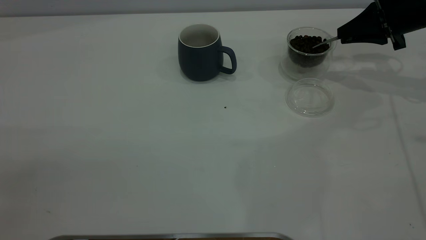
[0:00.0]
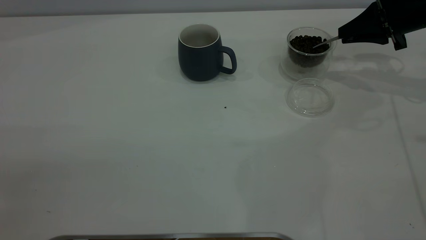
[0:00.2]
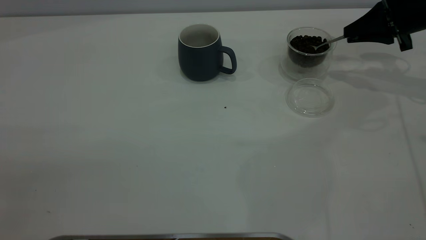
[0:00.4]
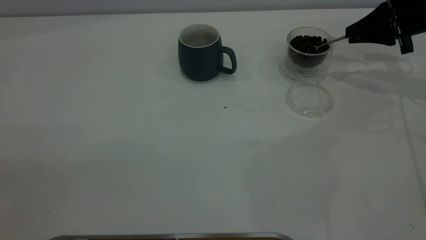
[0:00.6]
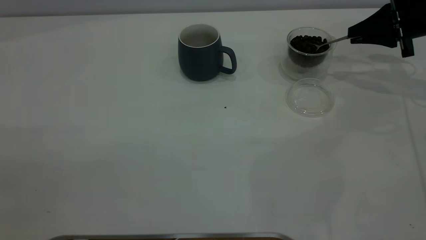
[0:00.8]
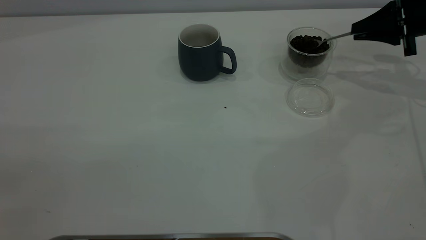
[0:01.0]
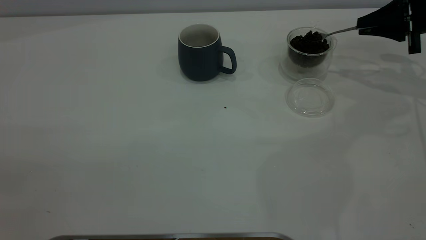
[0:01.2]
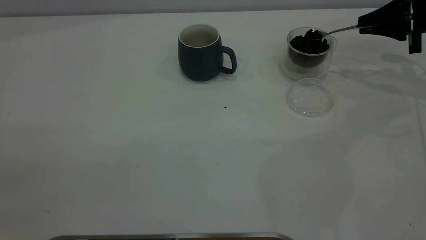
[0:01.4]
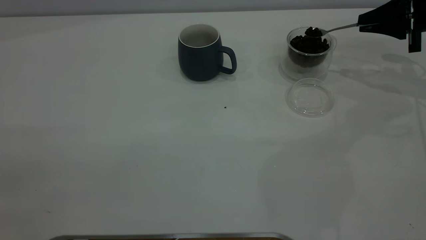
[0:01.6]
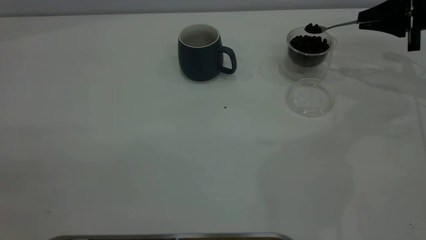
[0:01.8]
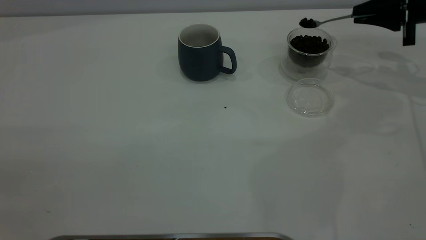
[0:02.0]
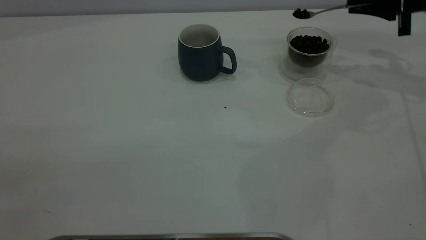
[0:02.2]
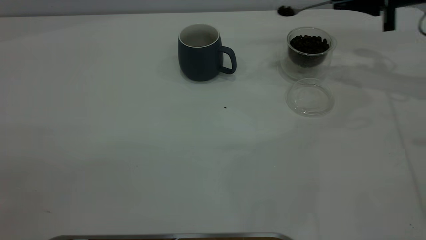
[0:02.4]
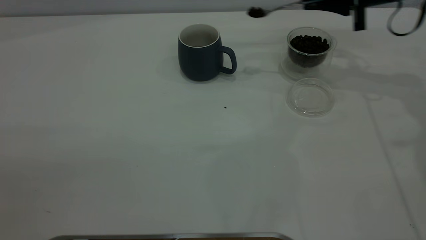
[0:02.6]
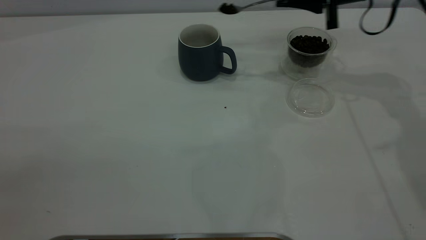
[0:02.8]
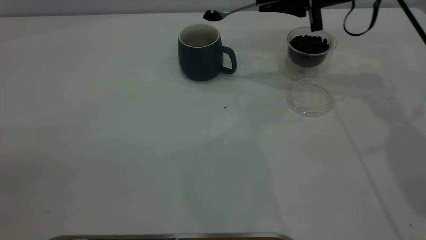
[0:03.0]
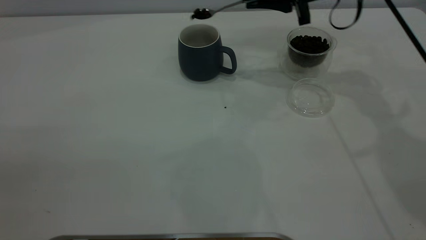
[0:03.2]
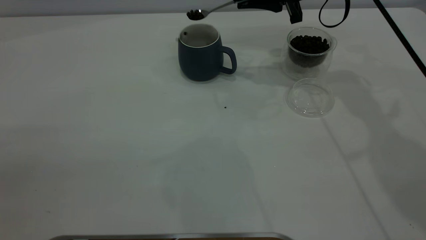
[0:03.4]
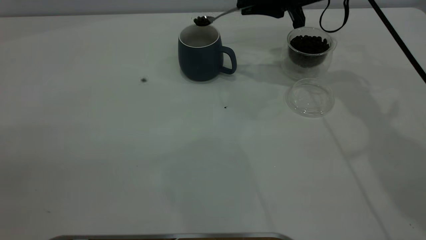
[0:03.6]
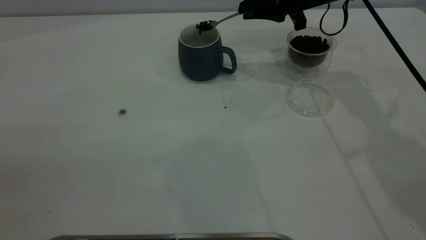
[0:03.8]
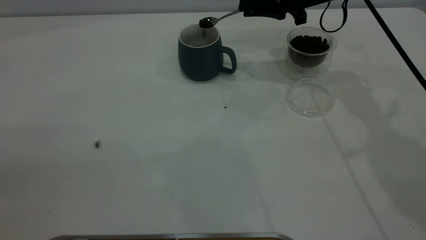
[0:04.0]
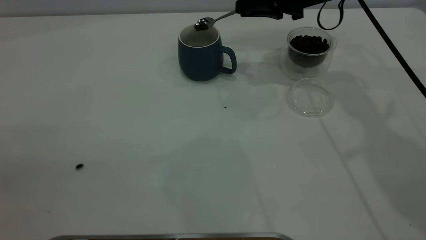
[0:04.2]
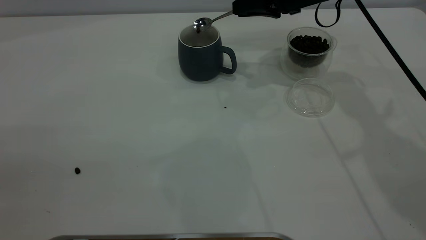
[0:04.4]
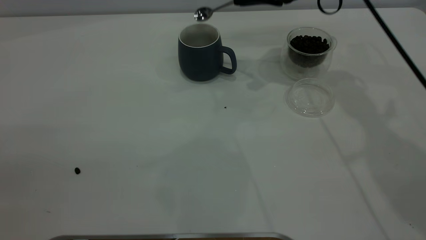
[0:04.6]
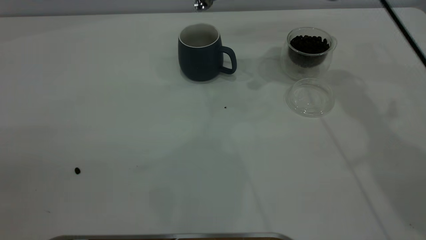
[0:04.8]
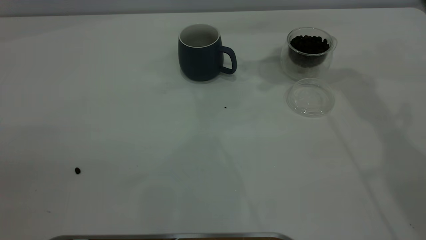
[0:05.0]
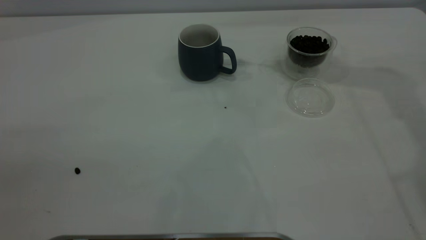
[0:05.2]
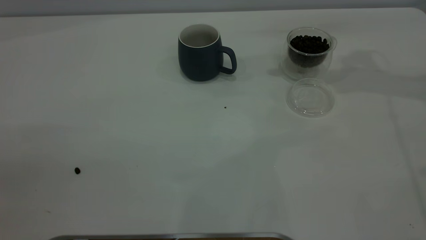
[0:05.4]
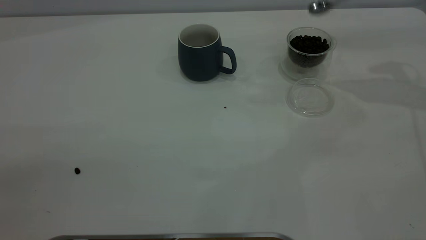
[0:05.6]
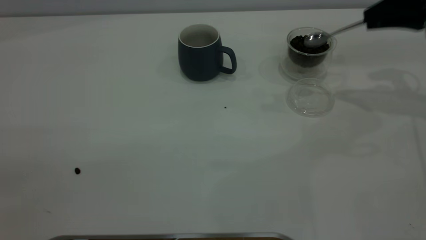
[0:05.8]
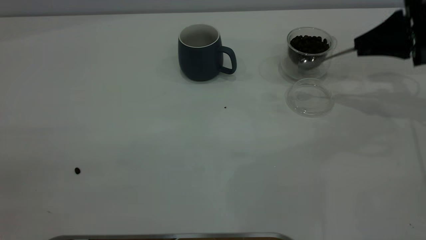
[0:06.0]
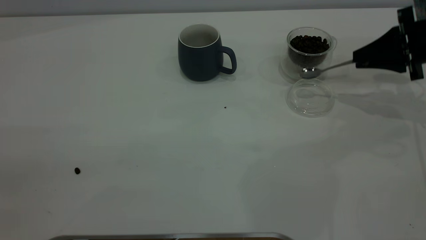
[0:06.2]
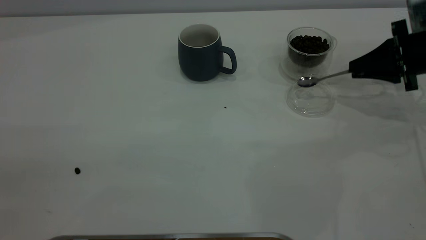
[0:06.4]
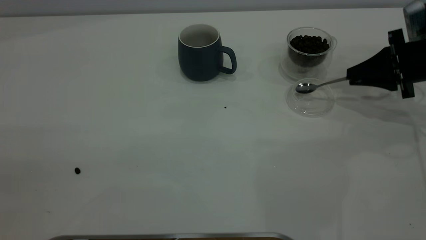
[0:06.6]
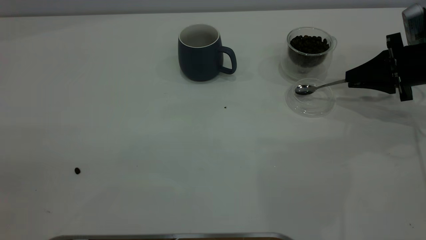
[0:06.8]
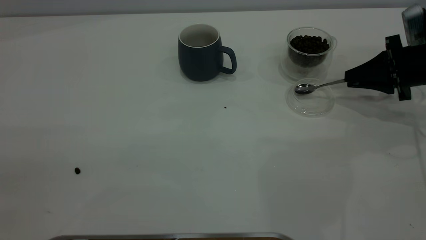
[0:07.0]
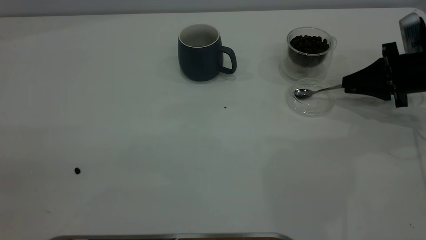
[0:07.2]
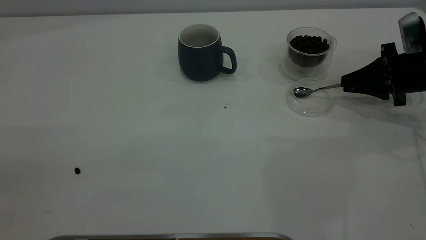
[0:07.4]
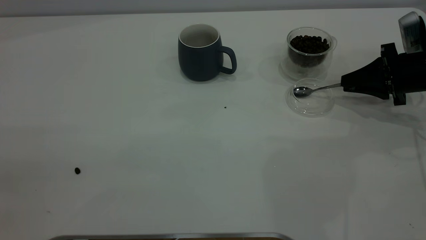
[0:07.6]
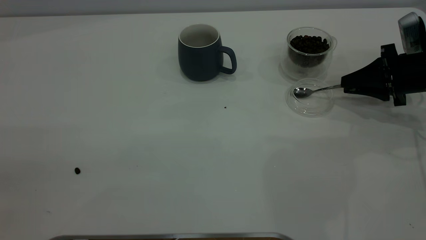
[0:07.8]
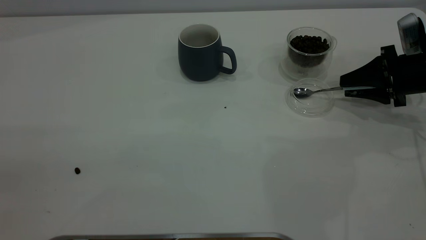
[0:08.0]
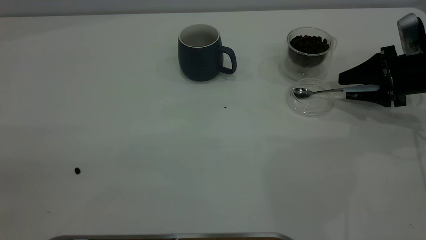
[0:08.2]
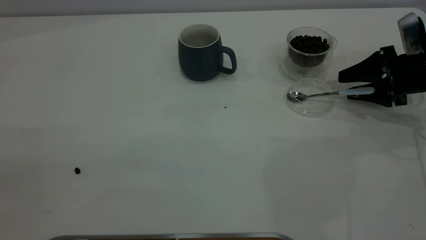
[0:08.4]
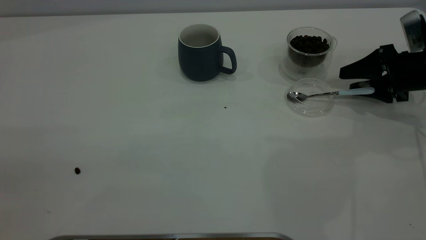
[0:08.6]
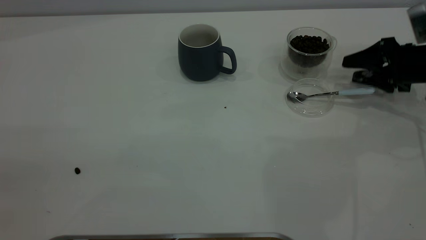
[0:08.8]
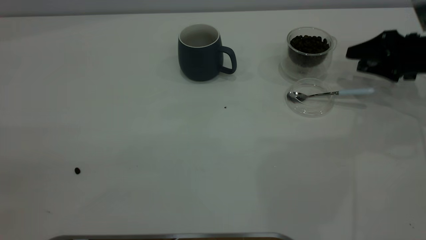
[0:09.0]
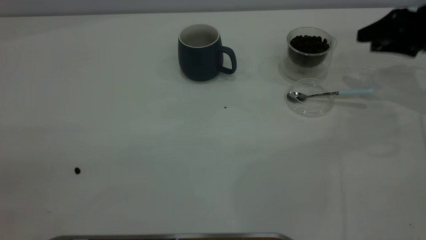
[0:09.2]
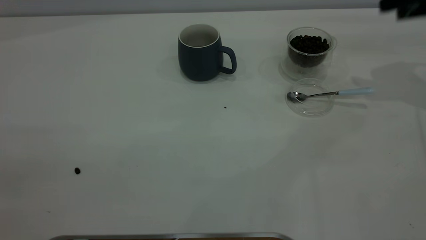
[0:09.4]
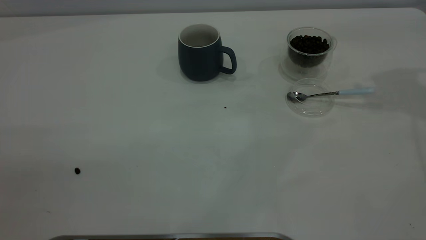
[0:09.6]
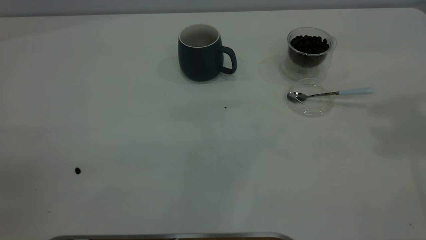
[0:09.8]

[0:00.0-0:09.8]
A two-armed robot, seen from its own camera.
Task of the whole recording: the left gripper place the grey cup in the center of the table, the right gripper take the blue spoon from the cup lid and scoop out the coffee beans from the coffee cup and put them into the grey cup, the right gripper put the spoon back into the cup lid.
Step, 0:00.0 to 0:04.8: Scoop a spoonful of beans into the cup.
Step, 0:05.0 to 0:08.8: Place the spoon back in its original place.
0:00.0 to 0:01.4: The grippers stay close to where they were, moving slightly.
0:01.4 to 0:02.8: The right gripper travels to the left by roughly 15 cm.
0:02.8 to 0:04.2: The right gripper travels to the left by about 5 cm.
0:04.2 to 0:05.6: The right gripper goes approximately 20 cm to the right.
0:05.6 to 0:07.0: The right gripper moves downward, approximately 15 cm.
0:07.0 to 0:08.4: The right gripper opens up.
0:08.4 to 0:09.8: The right gripper travels upward by roughly 35 cm.

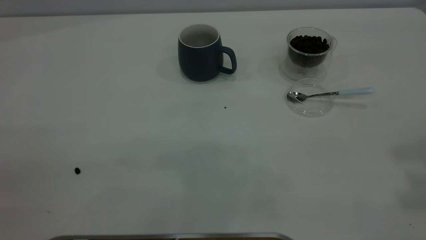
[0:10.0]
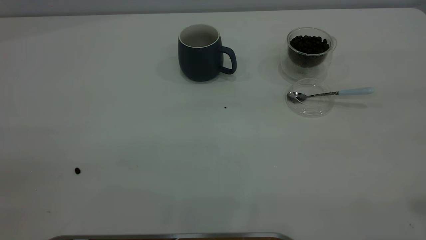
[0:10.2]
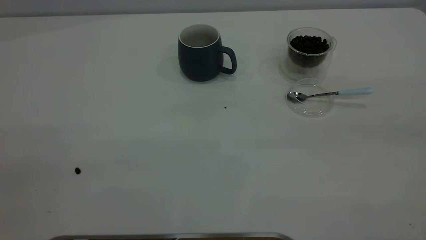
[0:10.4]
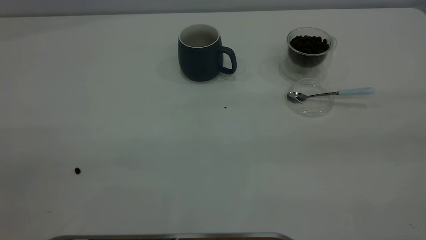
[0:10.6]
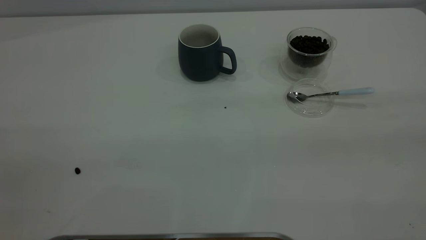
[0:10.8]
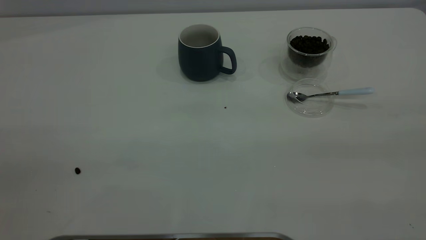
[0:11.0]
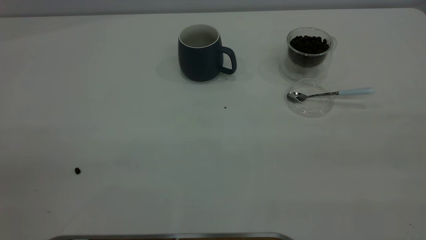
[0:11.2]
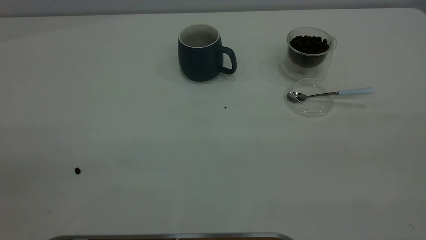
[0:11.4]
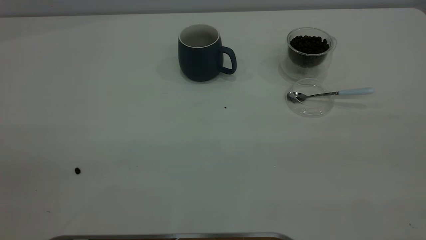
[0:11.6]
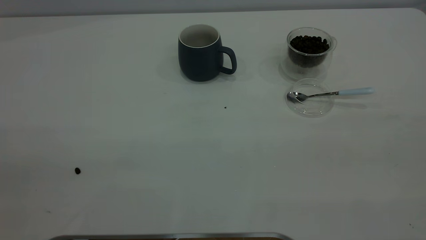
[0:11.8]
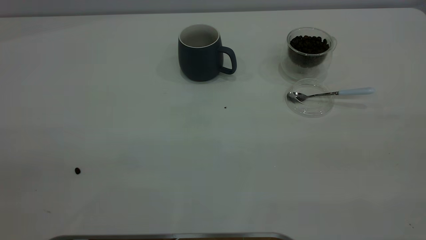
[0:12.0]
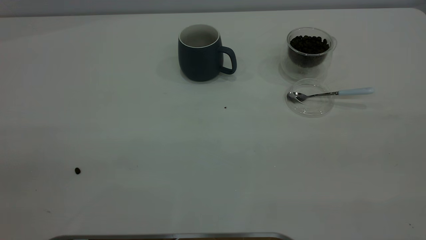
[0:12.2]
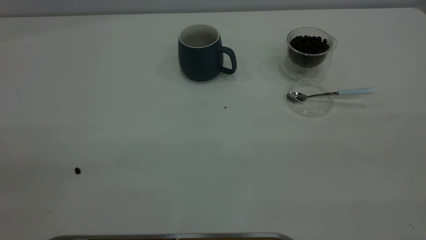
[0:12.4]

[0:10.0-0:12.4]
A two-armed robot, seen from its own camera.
Task of the whole recording: the left gripper place the grey cup in the center of the table, the right gripper take the blue spoon from the cup lid and scoop out the coffee beans from the coffee cup and put them into the grey cup, the right gripper put the spoon back into the cup lid.
0:11.2 to 0:12.4: Both grippers stay about where they are.
